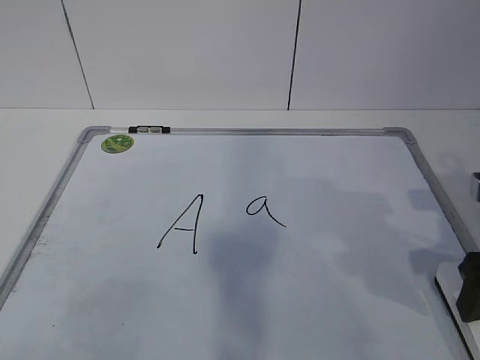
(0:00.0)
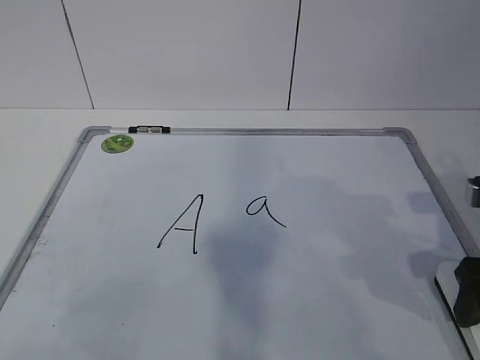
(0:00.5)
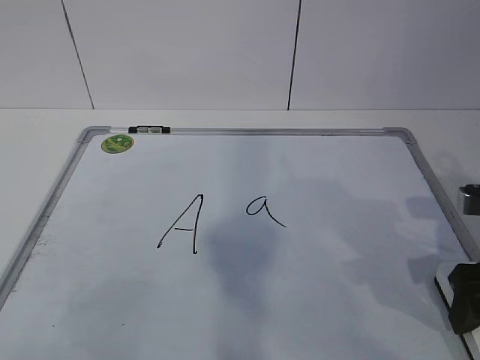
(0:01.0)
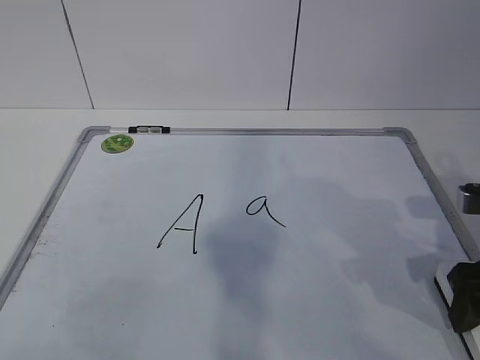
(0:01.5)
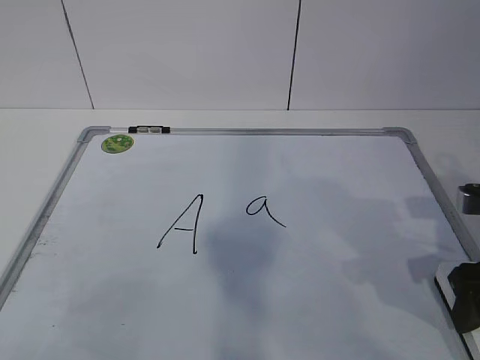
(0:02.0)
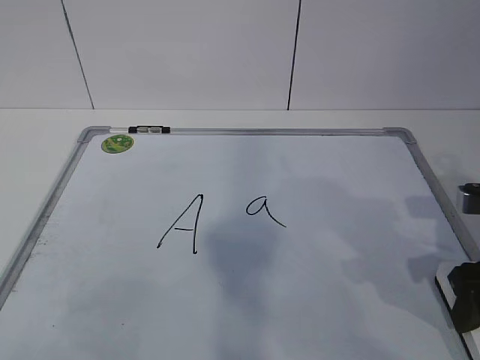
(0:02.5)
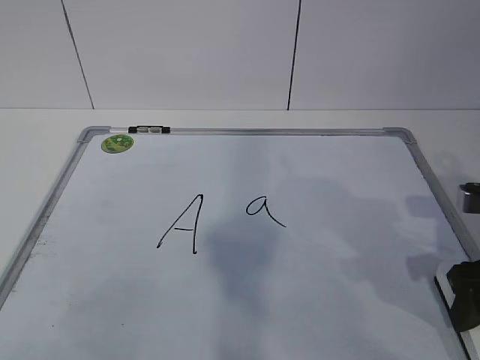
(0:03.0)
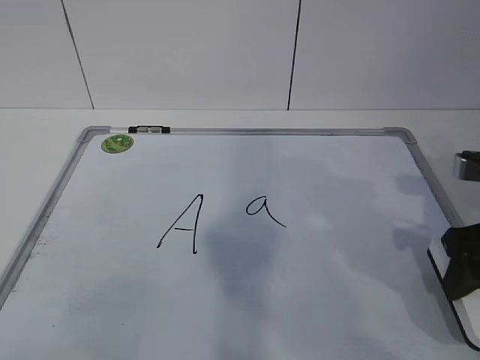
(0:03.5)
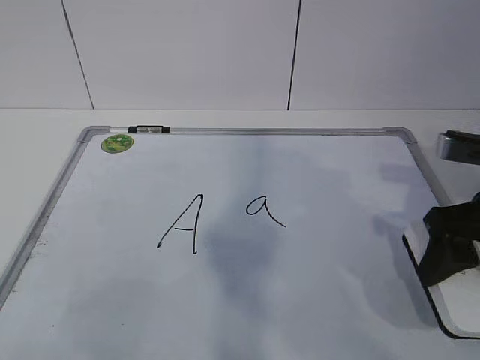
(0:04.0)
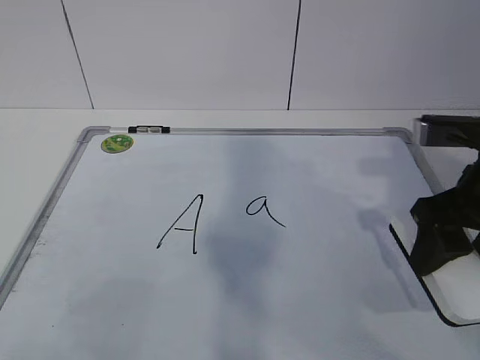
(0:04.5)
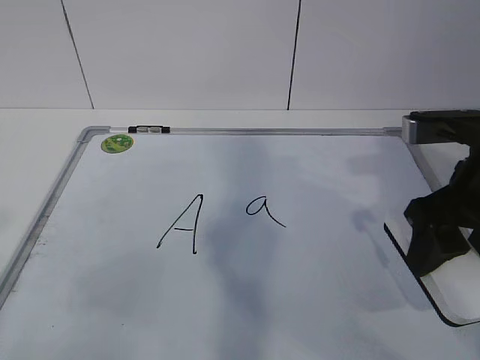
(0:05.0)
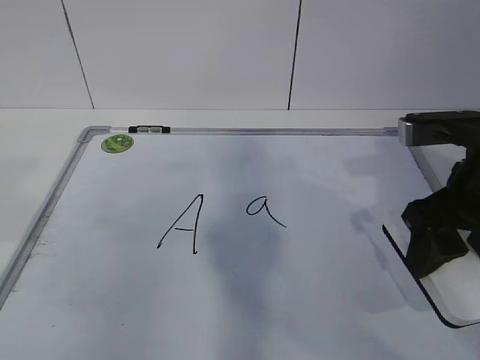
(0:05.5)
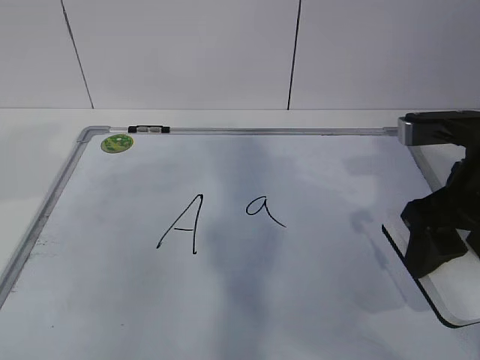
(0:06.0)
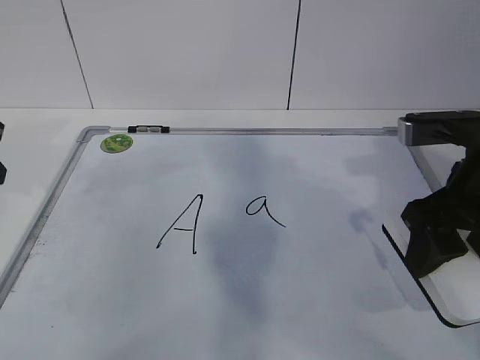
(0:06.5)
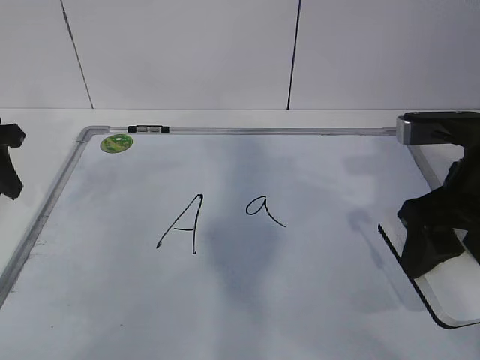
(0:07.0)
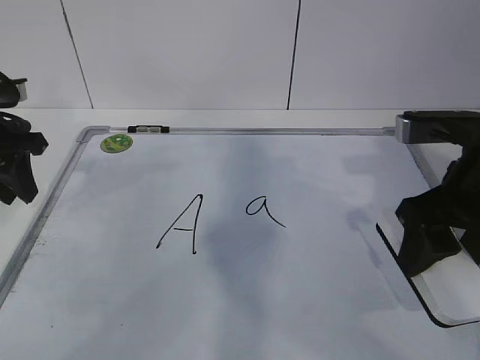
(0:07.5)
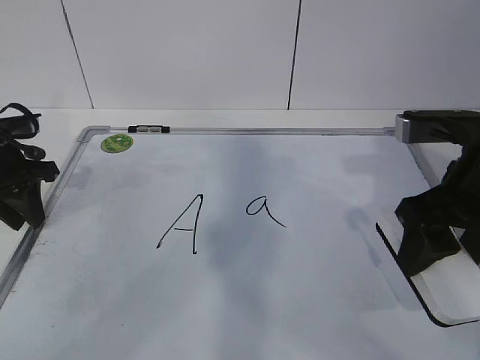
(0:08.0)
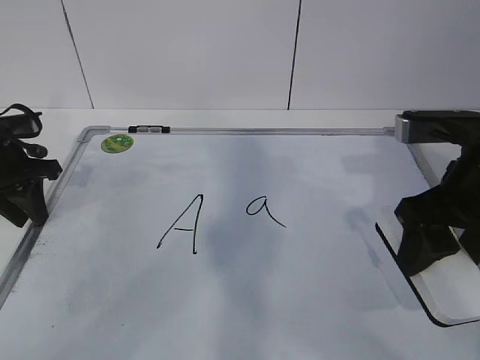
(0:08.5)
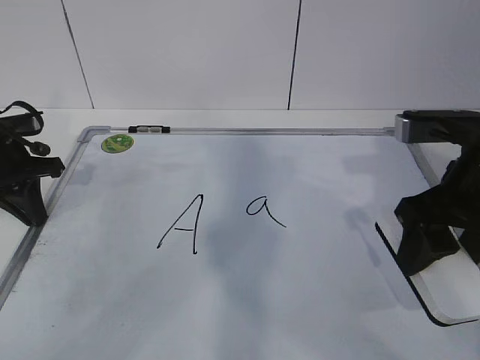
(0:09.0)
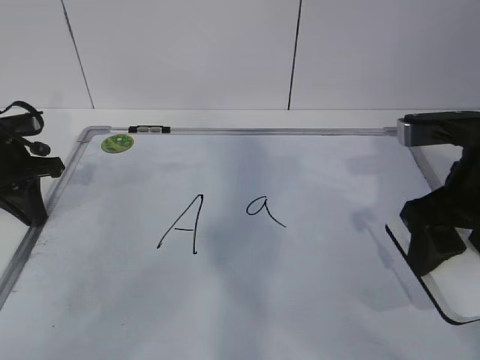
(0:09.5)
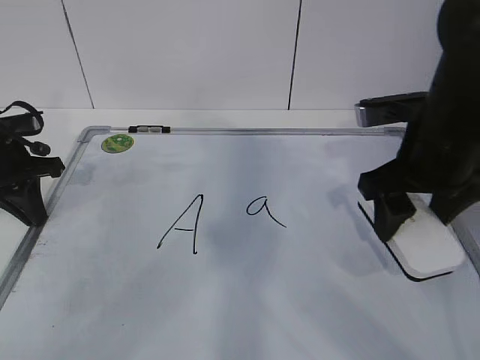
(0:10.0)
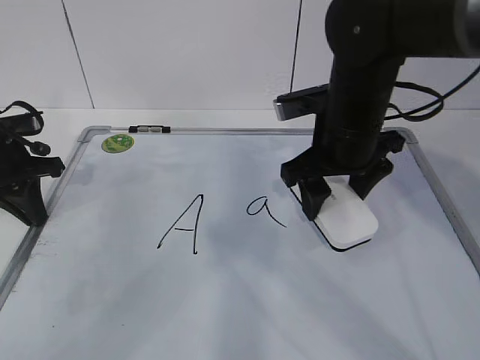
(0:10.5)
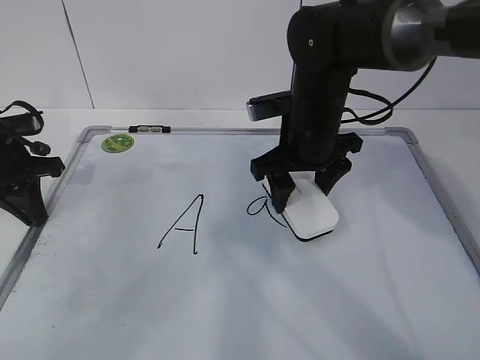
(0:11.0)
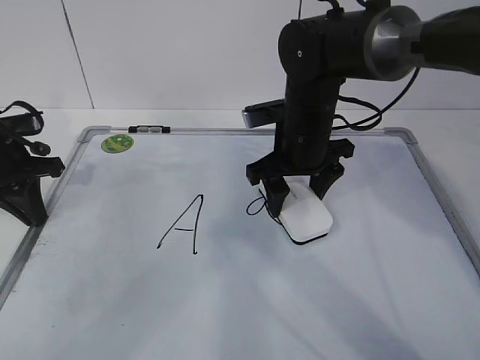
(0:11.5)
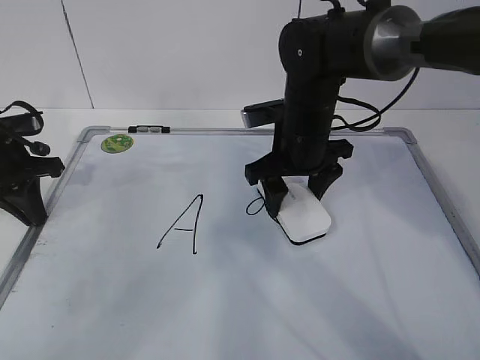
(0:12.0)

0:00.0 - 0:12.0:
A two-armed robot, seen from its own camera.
Task of the whole recording: pick up the eraser on the blackboard and erase the letter "a".
Step, 0:01.5 - 0:06.0: Hold the drawing board steady with your left hand.
Step, 0:06.5 - 0:10.5: Erase the letter a with your right hand.
0:00.0 - 0:02.0: The right gripper closes its fingers.
0:02.0 - 0:04.0: The right gripper ends up some 5 cm from where it was.
0:06.0 - 0:08.0: The left gripper travels forward and downward by some 15 cm.
0:08.0 - 0:10.0: The right gripper travels forward by some 5 cm. Meanwhile the left gripper closes up.
0:10.0 - 0:12.0: The right gripper goes roughly 15 cm to the left, forward and downward.

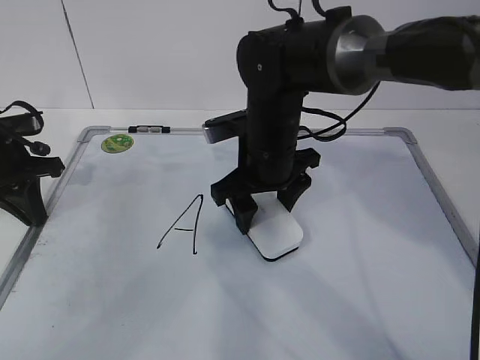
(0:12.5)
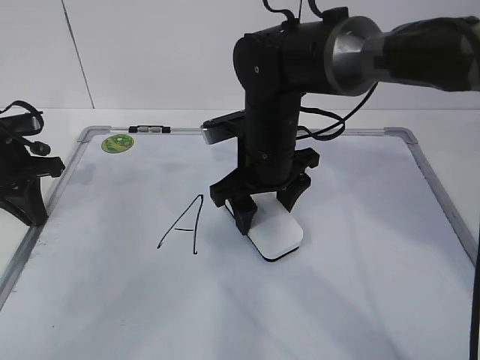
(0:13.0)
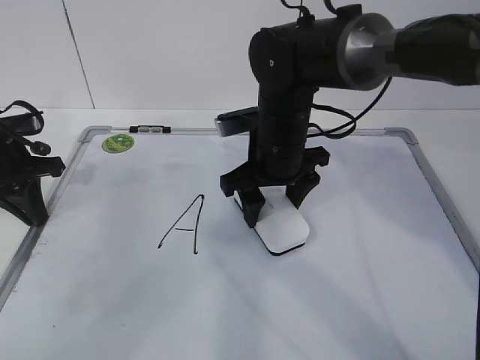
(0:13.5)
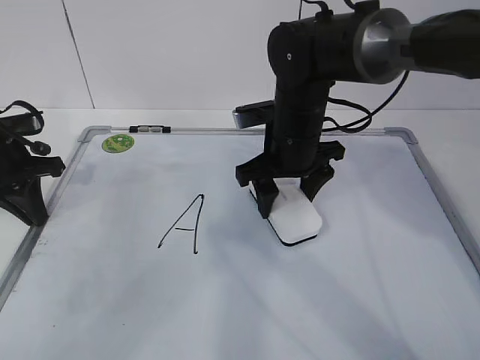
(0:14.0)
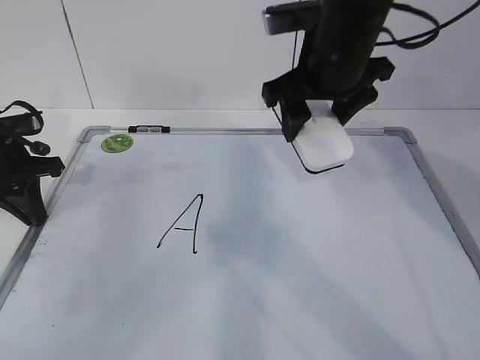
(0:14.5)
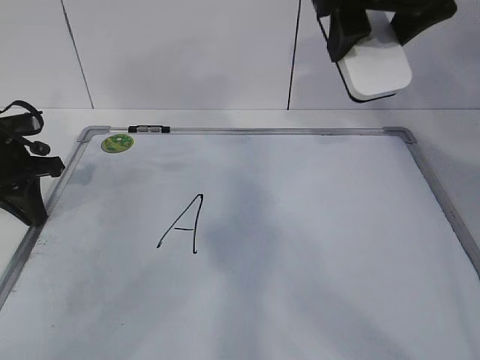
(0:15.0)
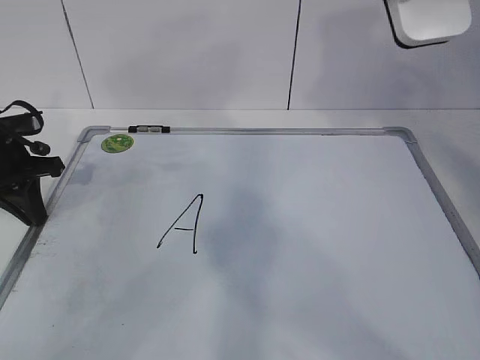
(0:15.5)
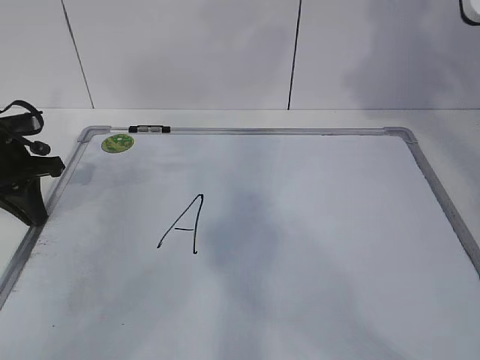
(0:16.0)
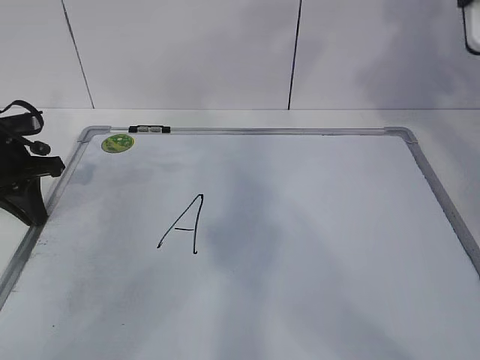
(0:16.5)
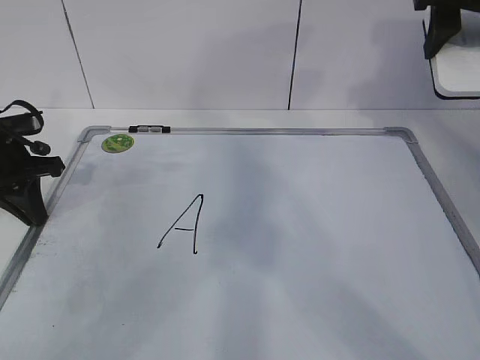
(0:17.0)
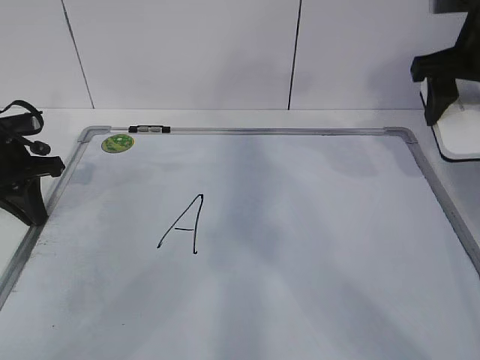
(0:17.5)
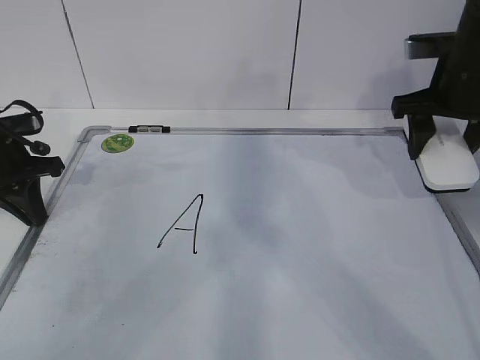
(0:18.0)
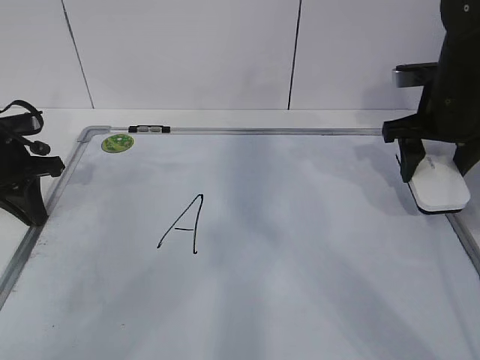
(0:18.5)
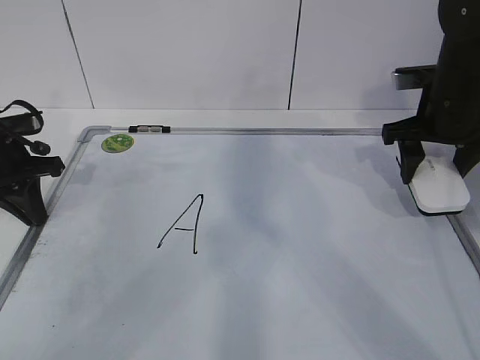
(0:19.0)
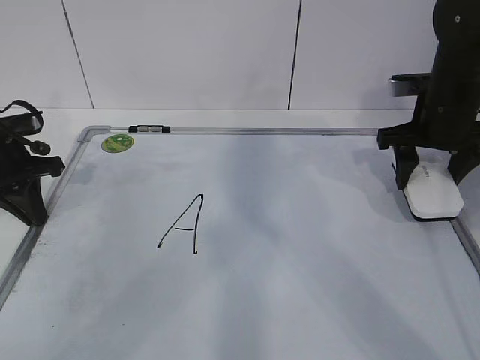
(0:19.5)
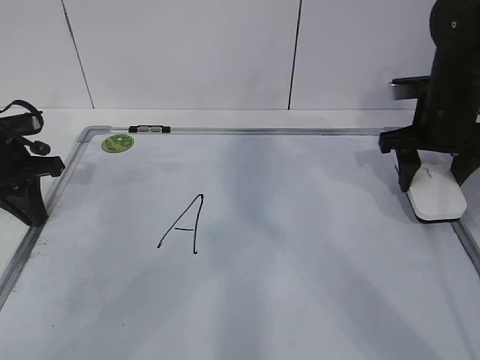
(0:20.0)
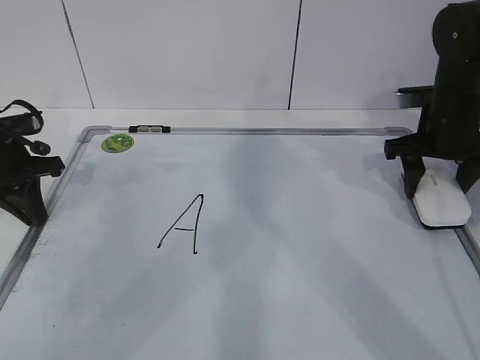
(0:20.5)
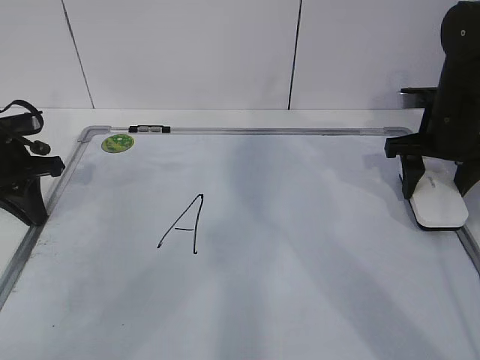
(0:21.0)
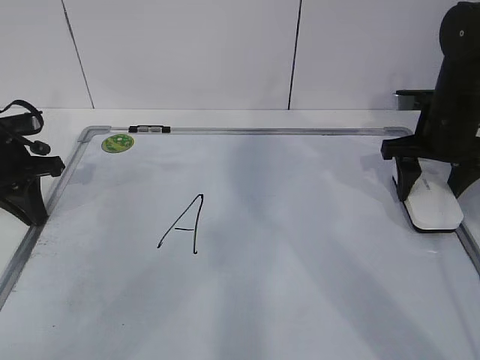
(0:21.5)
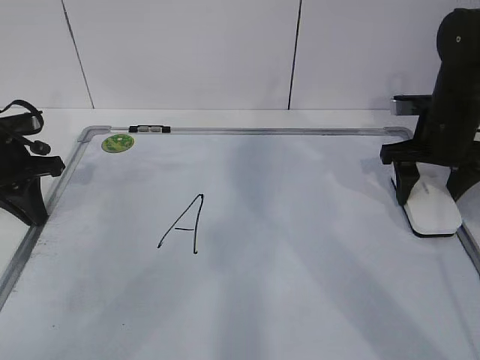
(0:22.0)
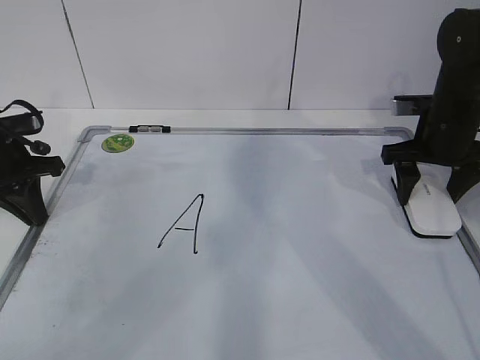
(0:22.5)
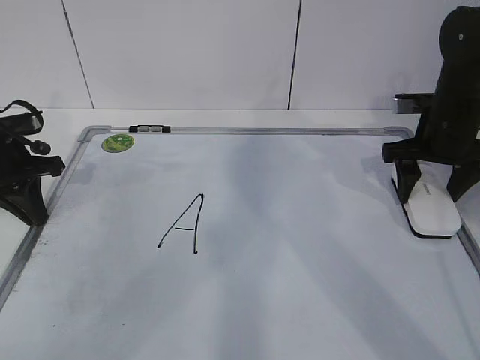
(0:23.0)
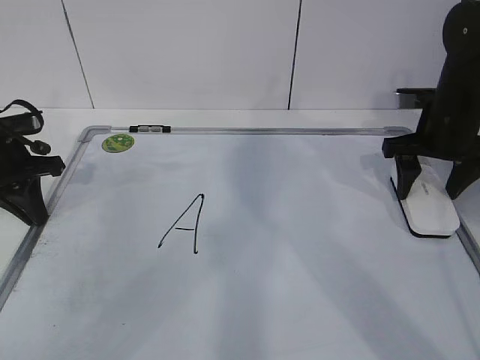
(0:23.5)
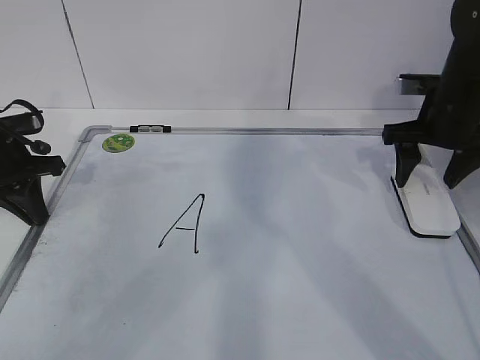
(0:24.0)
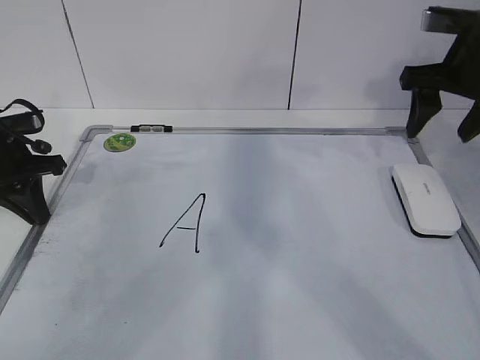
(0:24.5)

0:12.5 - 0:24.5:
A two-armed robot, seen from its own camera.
Task of the whole recording: pick up the eraser on the blackboard and erase the letter "a".
Step, 0:12.5 - 0:18.5: Put down the eraser with your right hand.
0:12.5 - 0:14.5: The right gripper goes about 15 cm upward and to the right.
0:14.5 - 0:16.5: The right gripper heads to the right and upward, covering about 20 cm.
0:16.5 - 0:18.5: The right gripper moves downward, roughly 20 cm.
0:18.5 - 0:22.5: There are only small adjustments of the grippers.
0:22.5 - 0:24.5: The right gripper travels upward by approximately 10 cm.

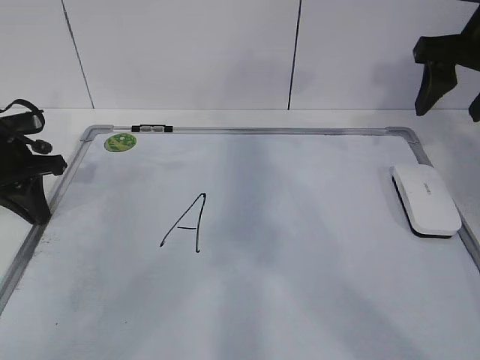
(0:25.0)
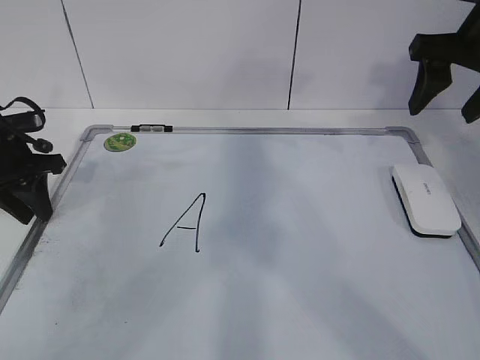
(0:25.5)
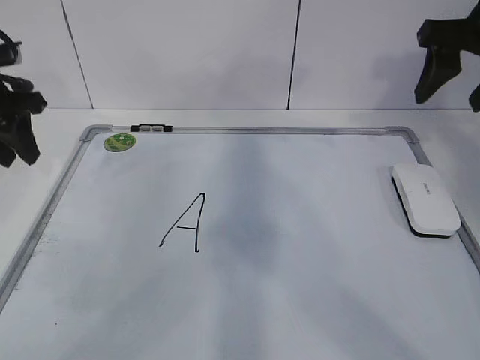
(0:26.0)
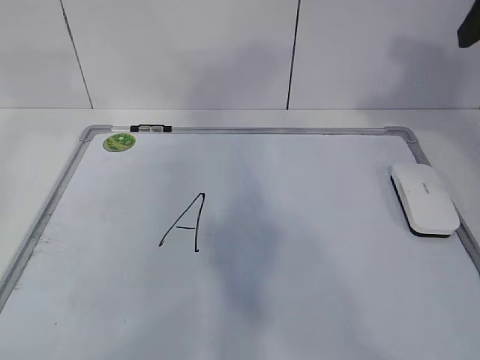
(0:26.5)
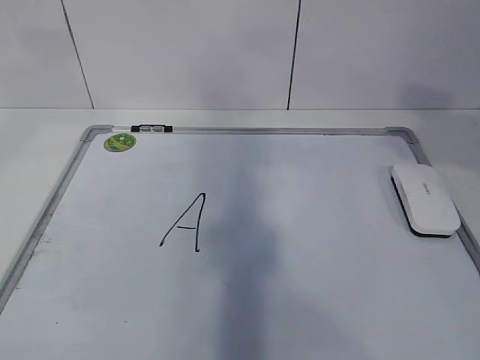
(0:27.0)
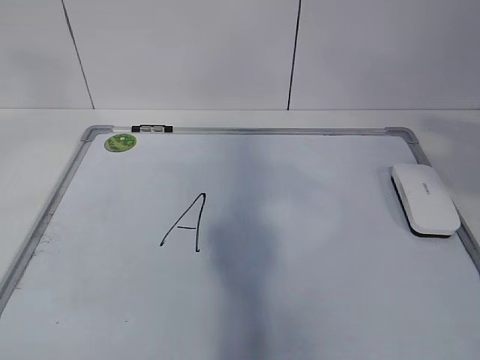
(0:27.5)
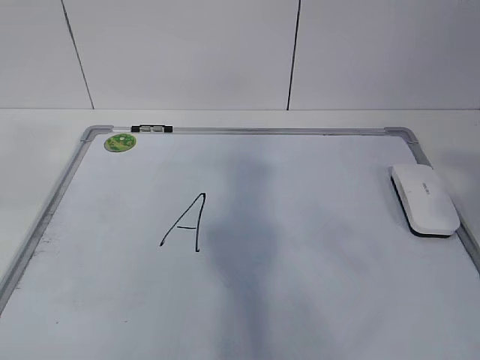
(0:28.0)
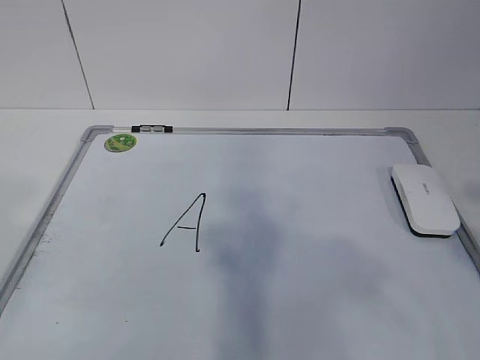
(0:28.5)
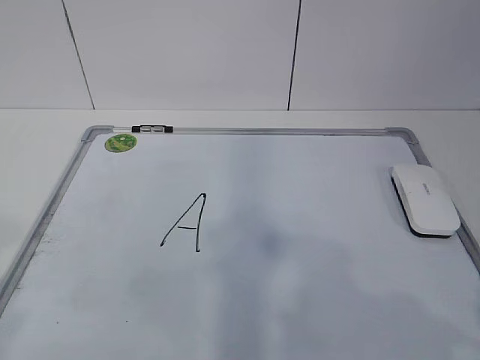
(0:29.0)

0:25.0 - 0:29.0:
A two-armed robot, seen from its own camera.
Task of the whole recording: pick up the eraser on the blackboard and erase the letter "a".
0:25.0 - 0:27.0: The left gripper goes some 35 cm upward and backward, and opens up; the right gripper moves backward and upward, approximately 20 cm.
0:27.0 - 0:29.0: The two grippers go some 25 cm backward and downward.
